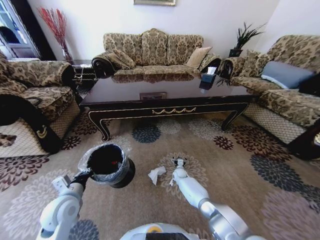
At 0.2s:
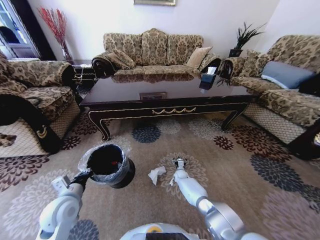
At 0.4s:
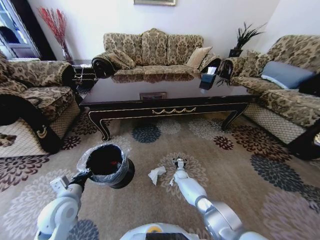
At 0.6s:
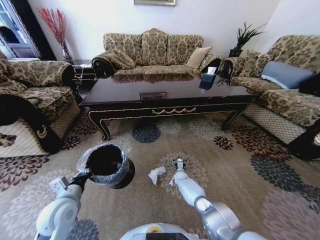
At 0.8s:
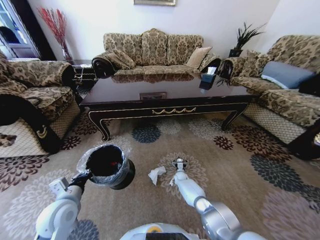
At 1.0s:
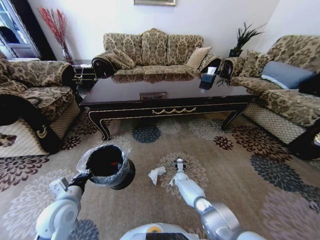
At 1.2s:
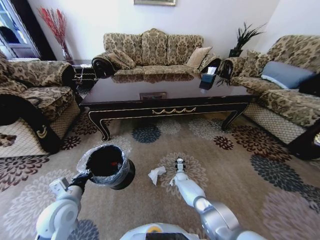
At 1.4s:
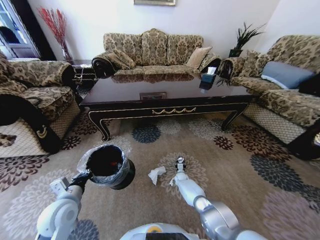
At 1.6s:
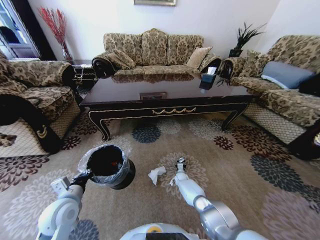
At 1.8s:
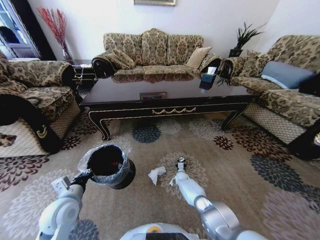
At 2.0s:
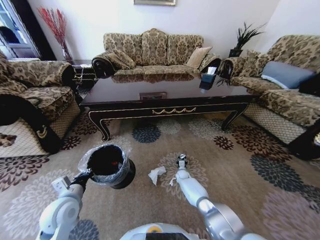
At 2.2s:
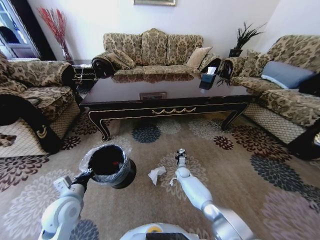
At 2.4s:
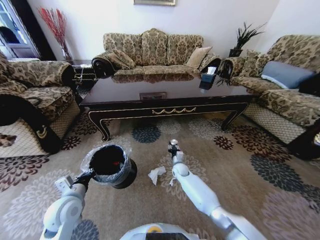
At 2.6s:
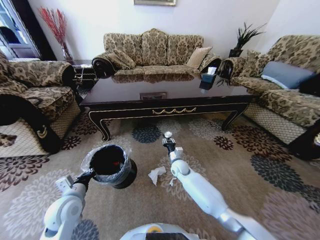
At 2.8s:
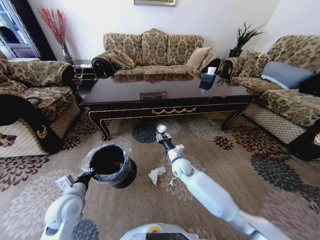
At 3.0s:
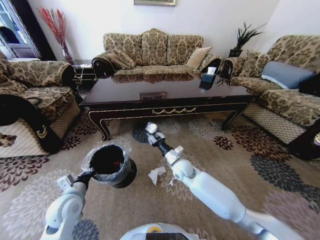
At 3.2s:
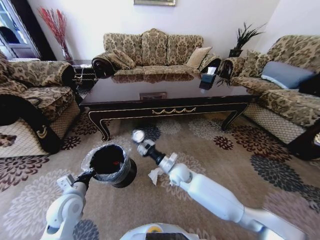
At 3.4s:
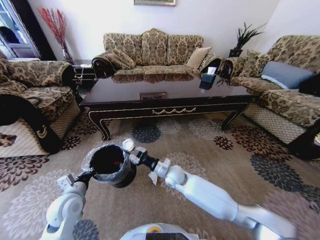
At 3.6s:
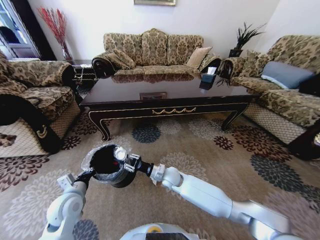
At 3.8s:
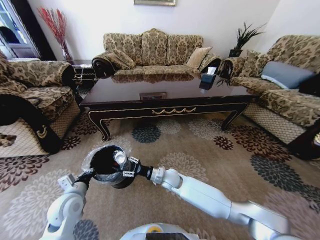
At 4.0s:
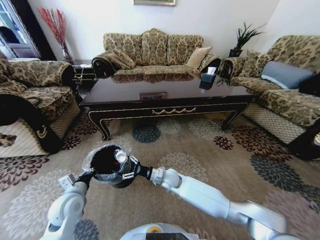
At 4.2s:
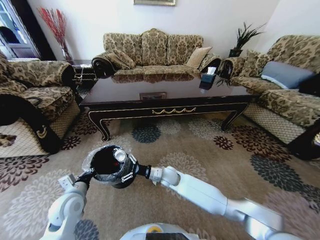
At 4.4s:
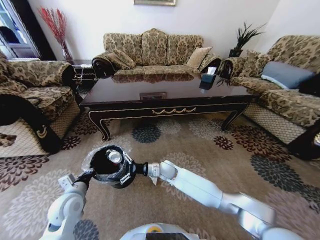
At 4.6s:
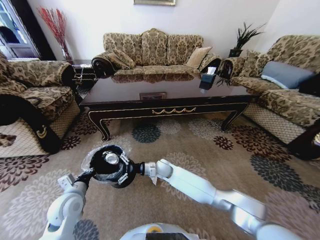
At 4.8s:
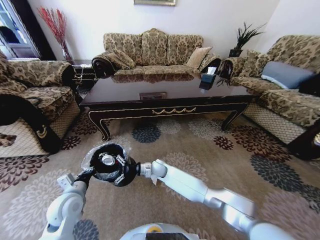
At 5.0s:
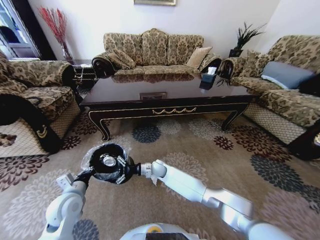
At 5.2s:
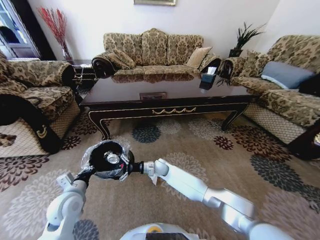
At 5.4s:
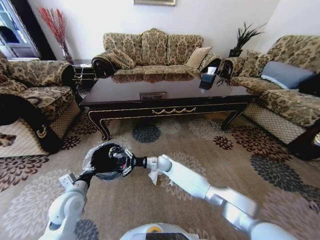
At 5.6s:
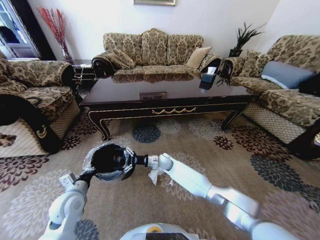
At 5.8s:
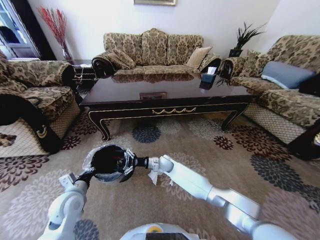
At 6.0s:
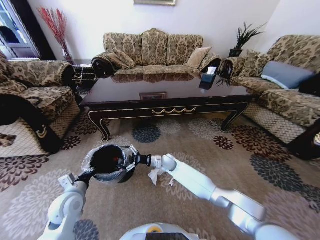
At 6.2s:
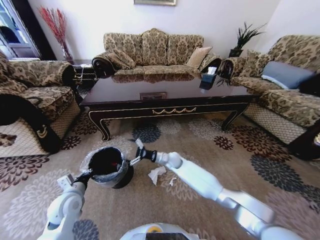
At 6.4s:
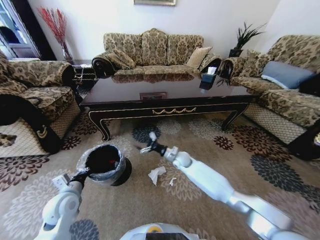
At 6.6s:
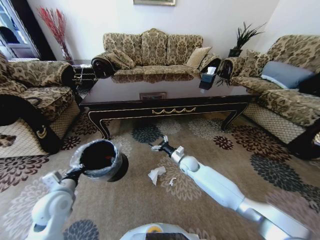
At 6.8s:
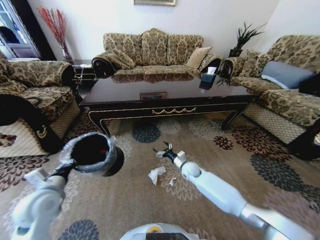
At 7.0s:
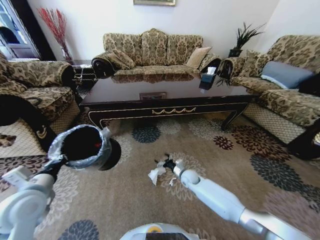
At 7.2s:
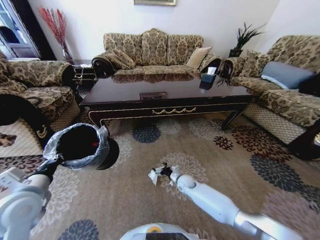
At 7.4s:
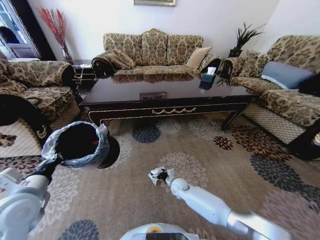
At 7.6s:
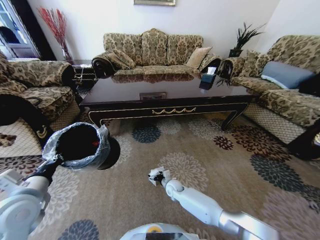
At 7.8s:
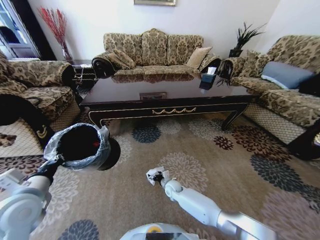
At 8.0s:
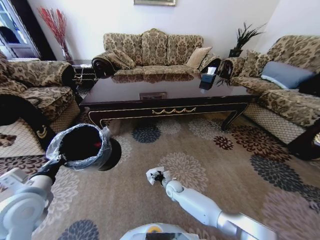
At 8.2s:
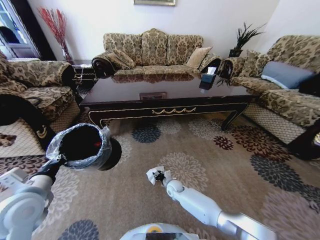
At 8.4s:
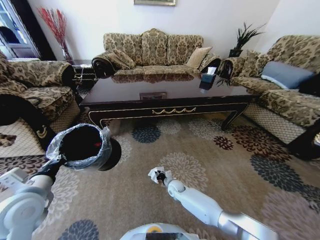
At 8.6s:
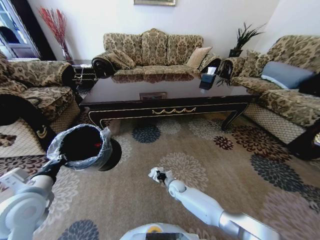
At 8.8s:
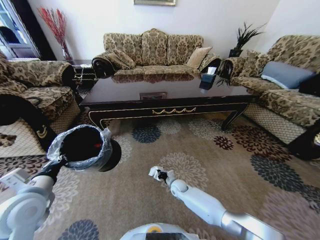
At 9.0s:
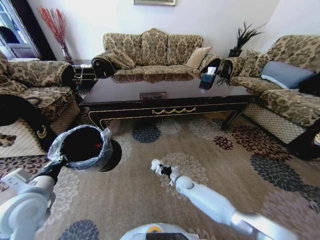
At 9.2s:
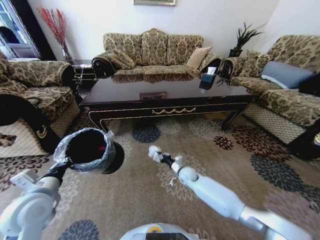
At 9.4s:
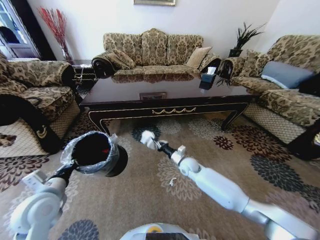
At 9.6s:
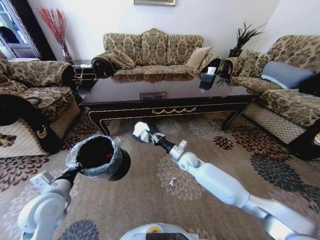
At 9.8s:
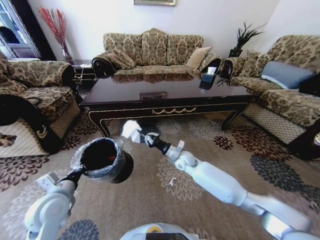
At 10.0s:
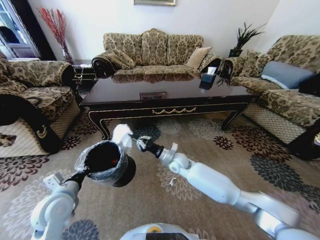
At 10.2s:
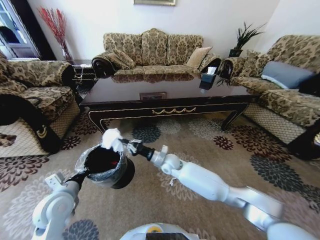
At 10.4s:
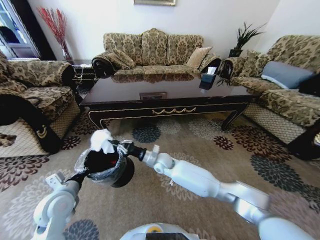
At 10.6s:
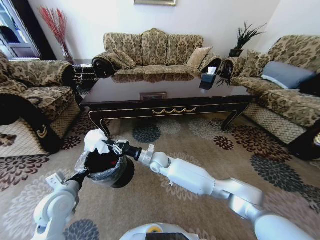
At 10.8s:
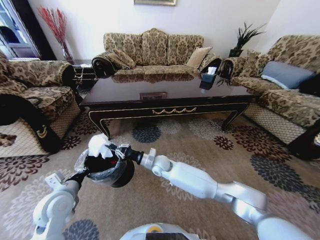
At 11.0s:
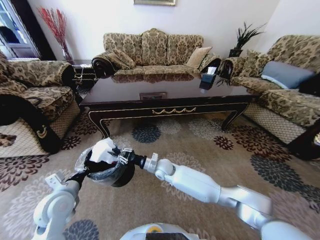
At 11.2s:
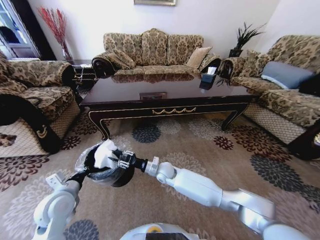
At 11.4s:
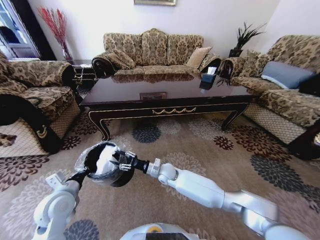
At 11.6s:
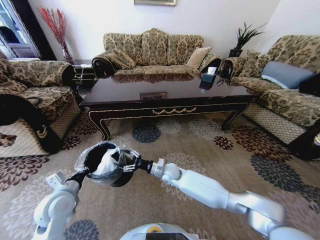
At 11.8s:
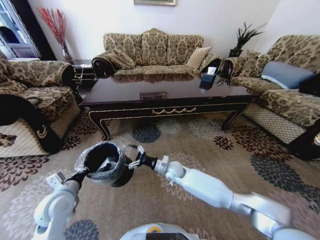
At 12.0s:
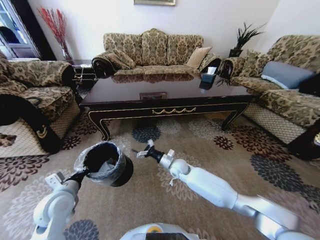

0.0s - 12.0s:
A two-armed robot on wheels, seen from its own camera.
Task of the whole recording: Move to the front of the table and pick up the trash from the floor, then place it into the trash bin.
0.0s - 1.6s: The right gripper closes its fingers.
1.6s - 3.0s: The right gripper is displaced upward by about 30 cm.
3.0s - 4.4s: The right gripper is displaced to the left by about 5 cm, and opens up.
4.4s - 6.0s: The right gripper travels forward by approximately 5 cm.
6.0s - 7.6s: The right gripper shifts some 15 cm downward and backward. Meanwhile the left gripper goes about 10 cm upward.
7.6s - 9.0s: The right gripper goes about 5 cm to the right, and closes its fingers.
9.0s - 10.4s: The left gripper goes about 5 cm downward; the right gripper goes approximately 25 cm upward and to the left.
10.4s - 12.0s: The right gripper goes some 10 cm to the right, and opens its fingers.

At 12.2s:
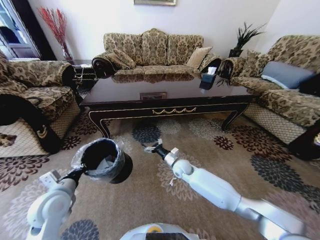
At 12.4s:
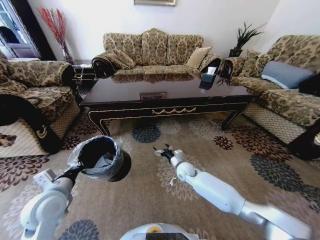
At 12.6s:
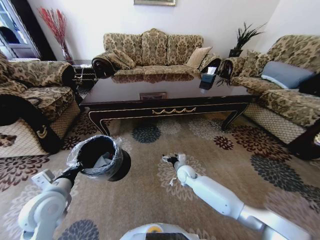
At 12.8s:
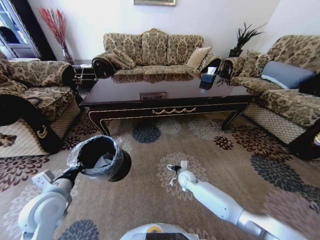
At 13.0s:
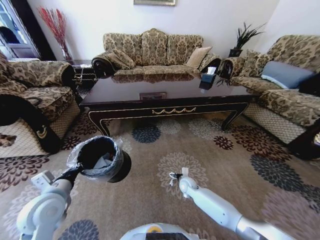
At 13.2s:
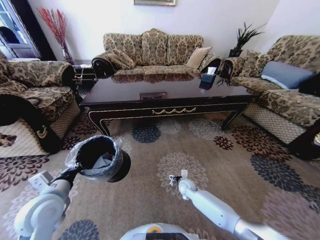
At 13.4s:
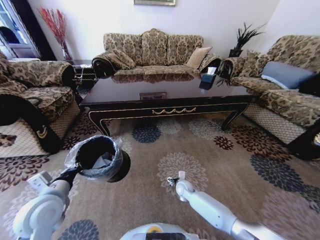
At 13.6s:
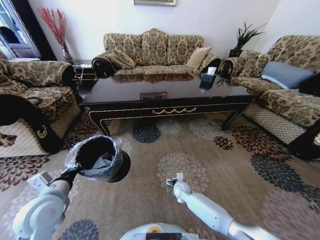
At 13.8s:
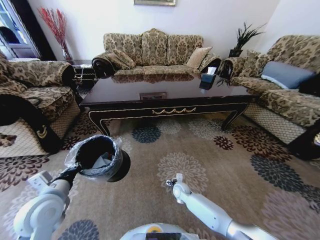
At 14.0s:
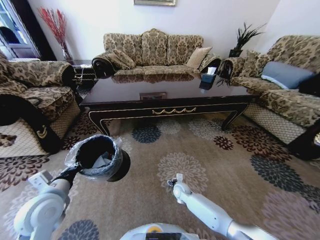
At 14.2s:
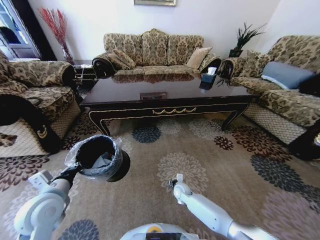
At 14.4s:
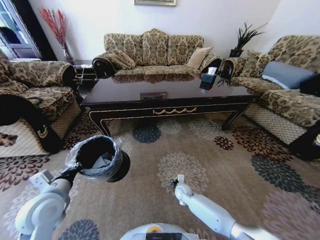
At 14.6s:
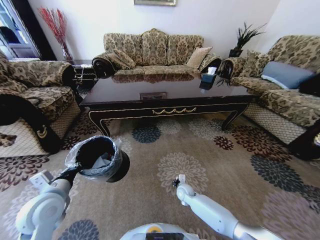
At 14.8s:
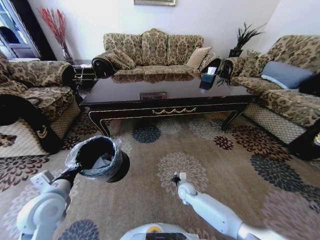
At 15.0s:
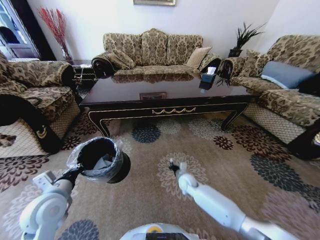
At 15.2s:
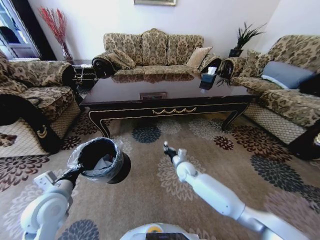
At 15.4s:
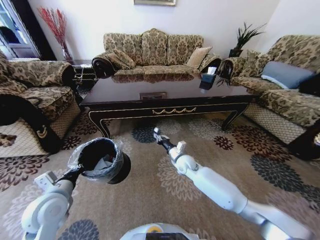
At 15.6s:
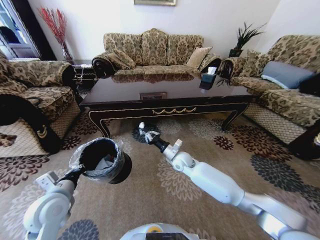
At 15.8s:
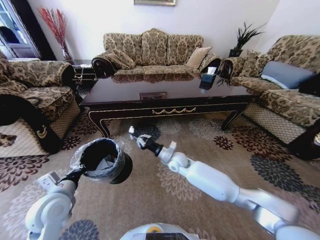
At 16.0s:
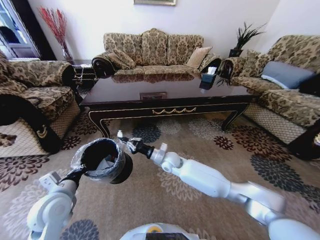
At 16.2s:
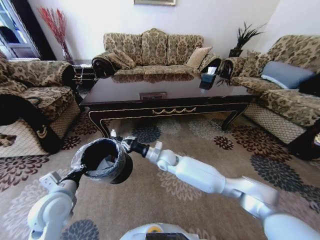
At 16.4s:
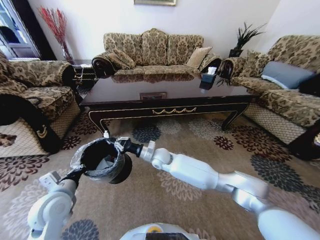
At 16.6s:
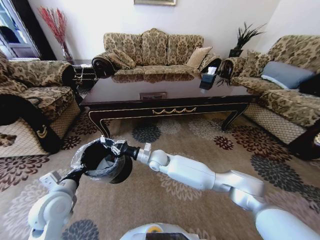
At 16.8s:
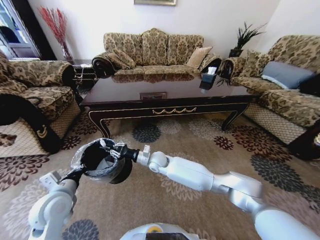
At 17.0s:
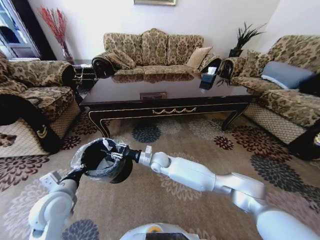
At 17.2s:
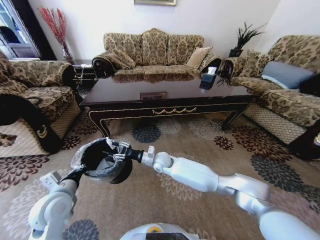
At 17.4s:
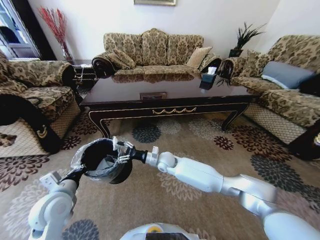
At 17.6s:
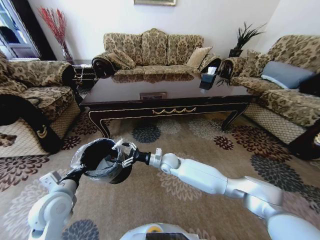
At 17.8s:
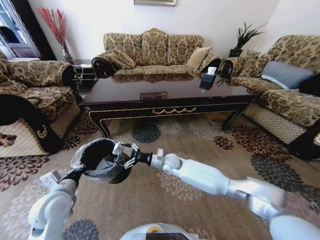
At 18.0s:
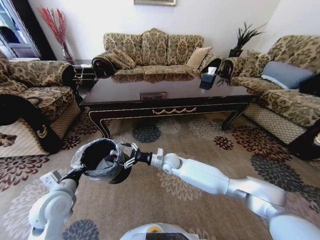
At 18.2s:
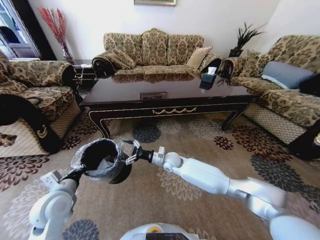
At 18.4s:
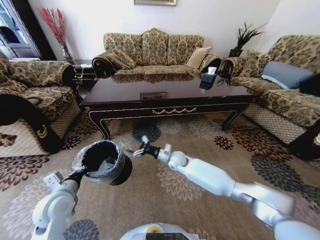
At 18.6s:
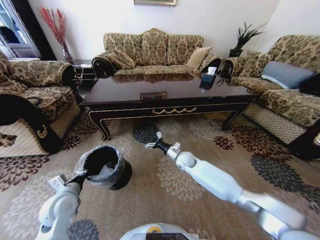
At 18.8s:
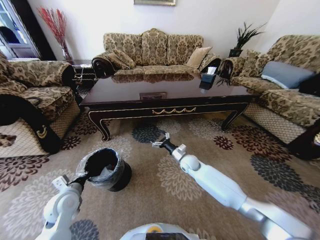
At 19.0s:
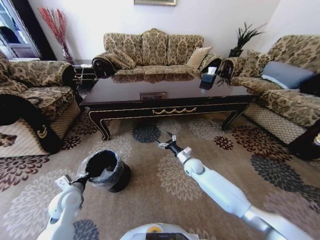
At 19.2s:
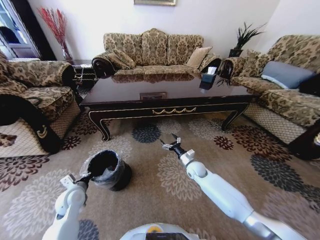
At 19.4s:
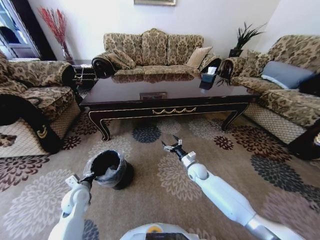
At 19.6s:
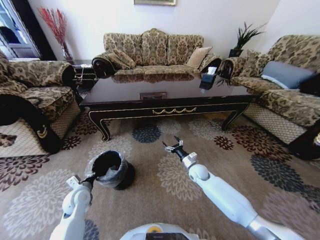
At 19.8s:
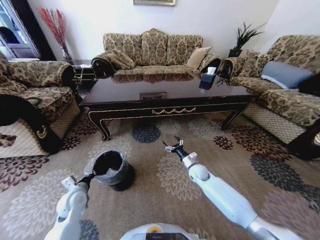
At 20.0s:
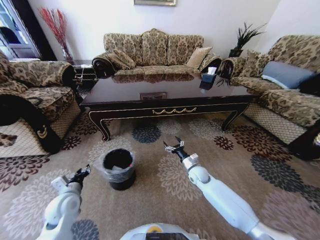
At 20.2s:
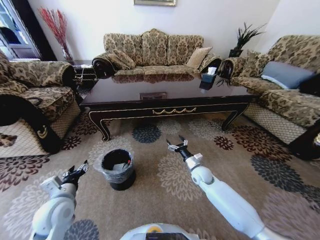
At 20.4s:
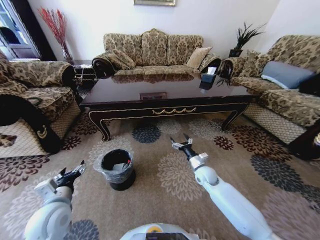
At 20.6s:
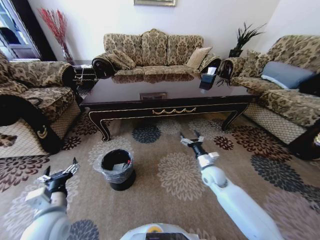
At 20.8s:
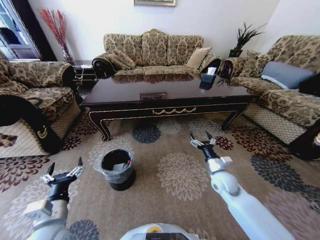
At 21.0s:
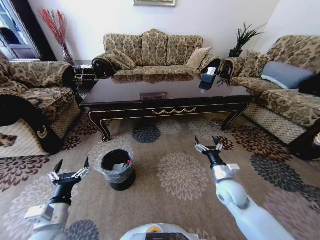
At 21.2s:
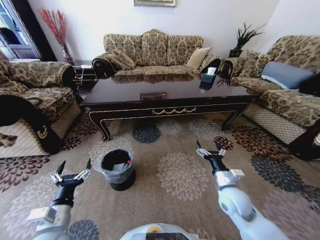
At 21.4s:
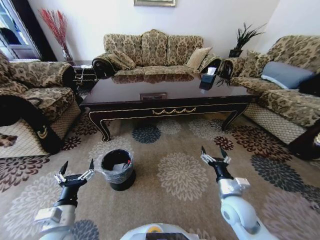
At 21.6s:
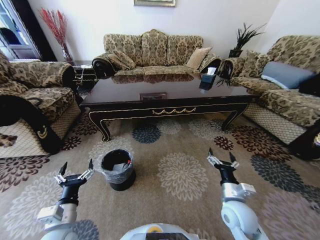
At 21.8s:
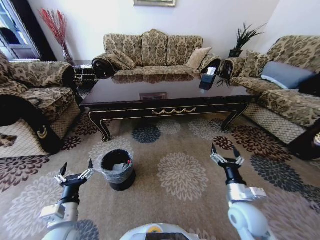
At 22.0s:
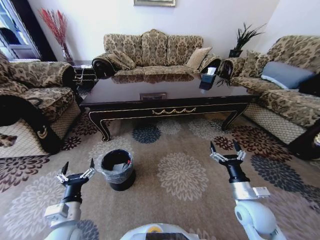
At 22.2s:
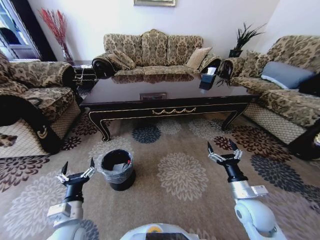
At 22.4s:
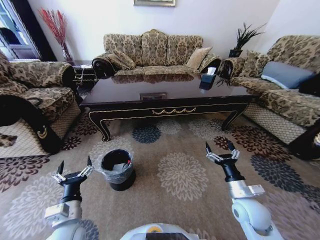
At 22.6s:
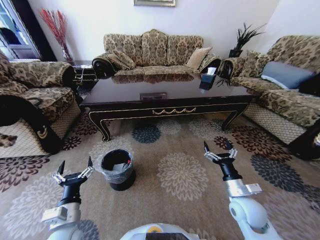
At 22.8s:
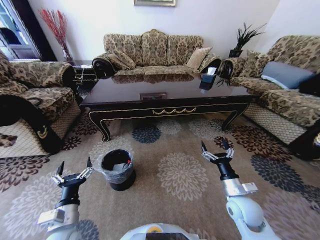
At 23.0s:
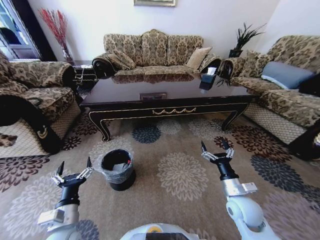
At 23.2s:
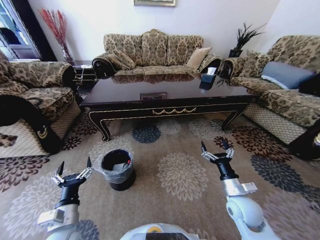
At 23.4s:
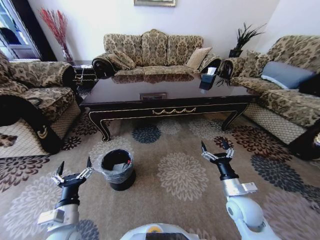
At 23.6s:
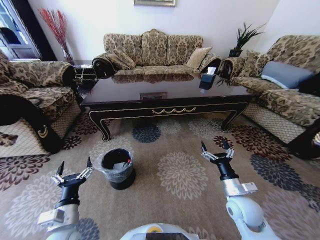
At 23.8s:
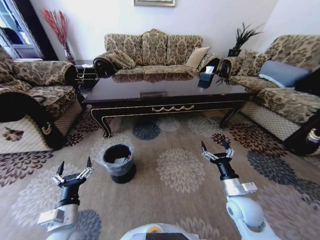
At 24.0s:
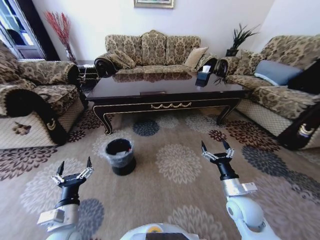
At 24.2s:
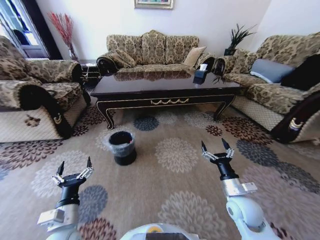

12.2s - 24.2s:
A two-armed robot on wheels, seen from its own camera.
Task of the whole recording: Move to the front of the table and pick up the trash from the floor, then place it into the trash bin.
12.2s - 13.8s: The right gripper shifts about 15 cm downward and backward.
13.8s - 15.2s: The right gripper goes roughly 15 cm upward, and closes.
15.2s - 16.6s: The right gripper travels to the left and upward by some 15 cm.
16.6s - 18.2s: The right gripper goes roughly 5 cm to the right, and opens.
18.2s - 19.8s: The right gripper shifts some 15 cm to the right and downward; the left gripper shifts approximately 10 cm downward.
19.8s - 21.2s: The two grippers go some 20 cm backward and upward. The left gripper opens up.
21.2s - 22.6s: The grippers stay close to where they were, moving slightly.
